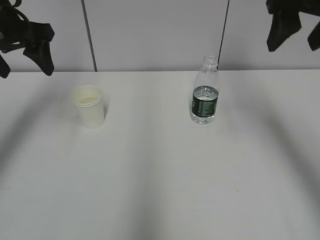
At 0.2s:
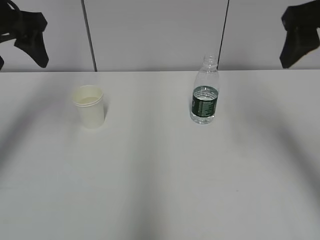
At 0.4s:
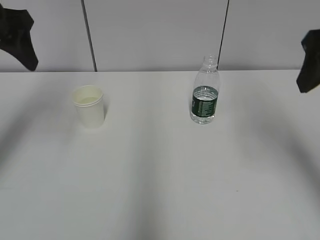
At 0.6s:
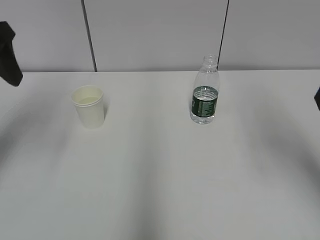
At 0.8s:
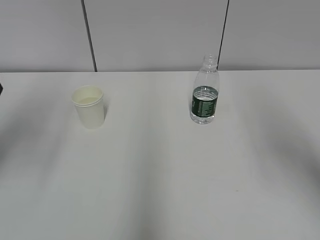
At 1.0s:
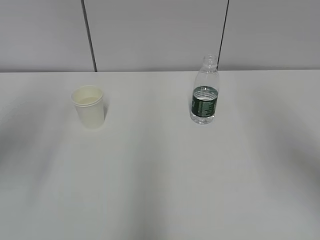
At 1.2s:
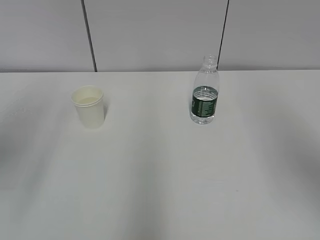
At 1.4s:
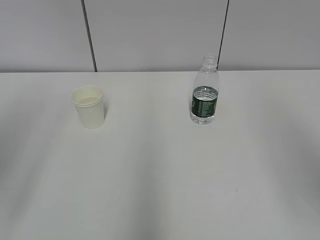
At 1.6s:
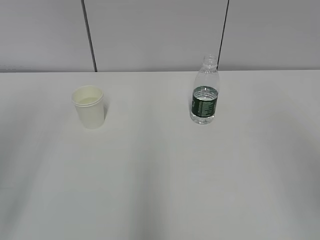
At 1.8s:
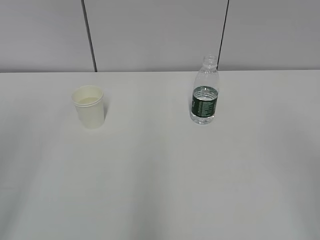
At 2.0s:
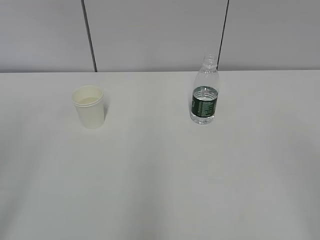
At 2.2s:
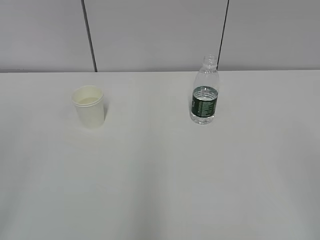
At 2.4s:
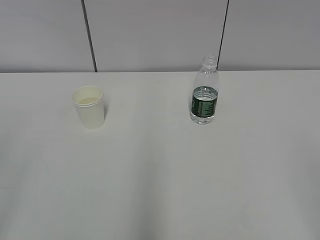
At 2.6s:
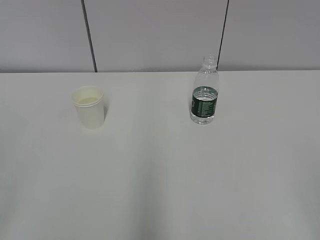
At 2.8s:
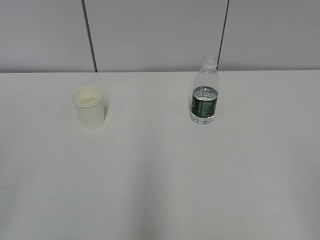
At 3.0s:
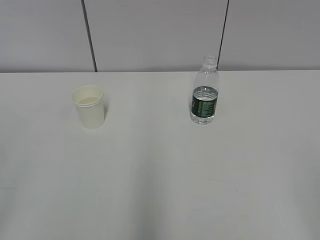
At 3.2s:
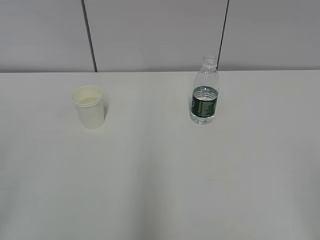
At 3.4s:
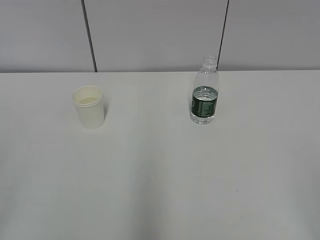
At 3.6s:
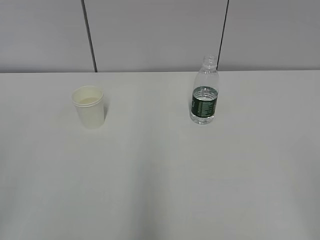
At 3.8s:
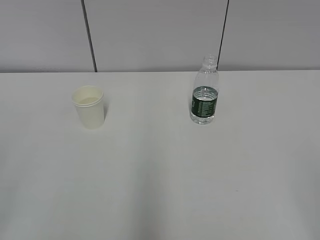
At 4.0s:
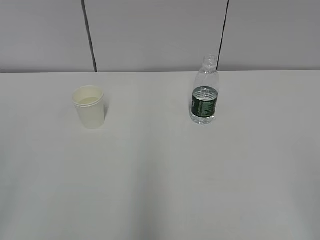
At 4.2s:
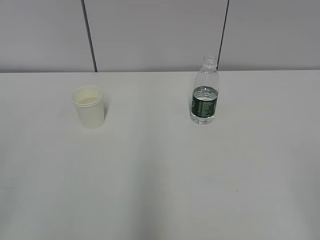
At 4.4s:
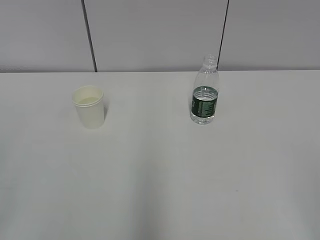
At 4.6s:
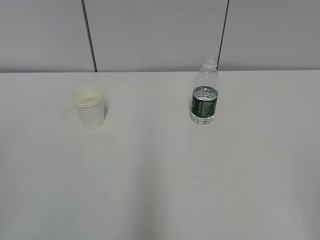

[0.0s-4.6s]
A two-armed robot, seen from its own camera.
0.0s to 1.6s: Both grippers travel together backward, about 25 cm.
3.0s to 4.6s: Both grippers stay put.

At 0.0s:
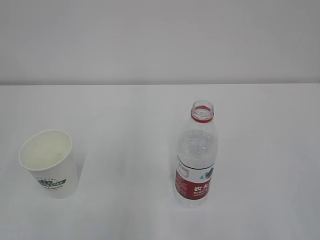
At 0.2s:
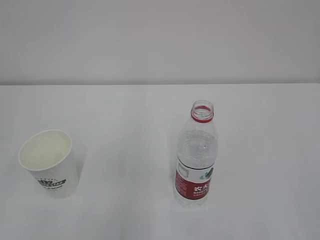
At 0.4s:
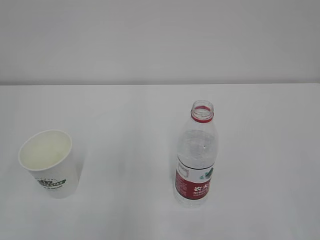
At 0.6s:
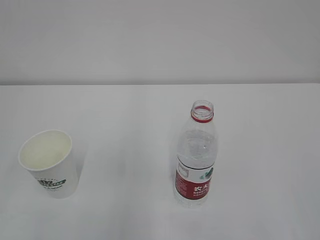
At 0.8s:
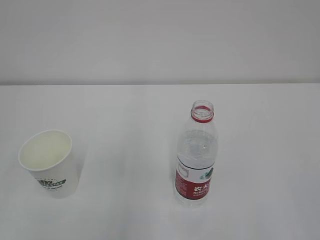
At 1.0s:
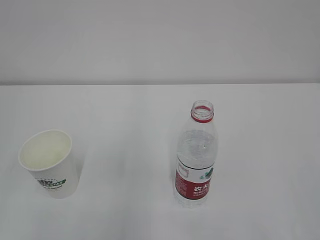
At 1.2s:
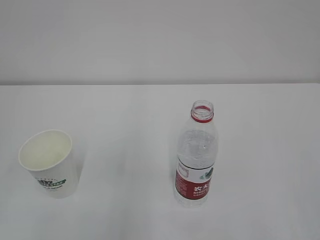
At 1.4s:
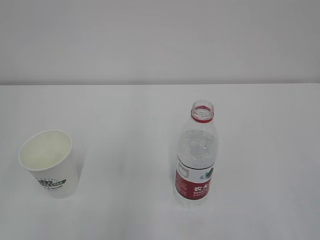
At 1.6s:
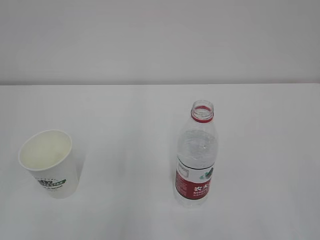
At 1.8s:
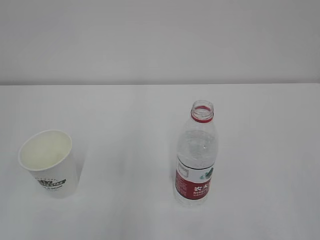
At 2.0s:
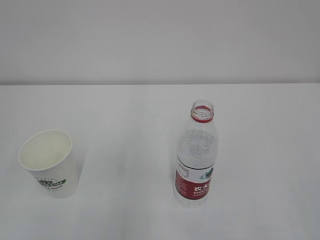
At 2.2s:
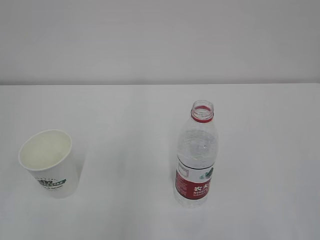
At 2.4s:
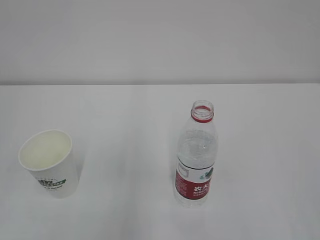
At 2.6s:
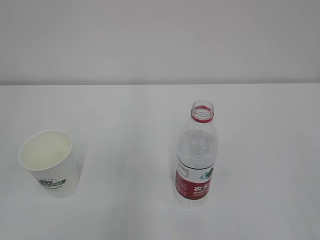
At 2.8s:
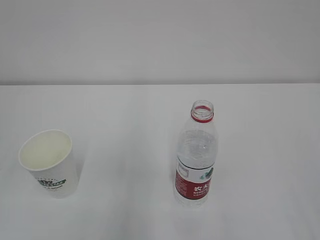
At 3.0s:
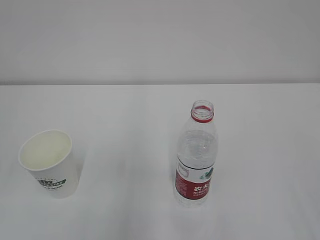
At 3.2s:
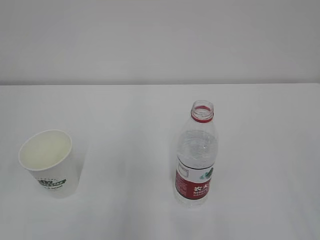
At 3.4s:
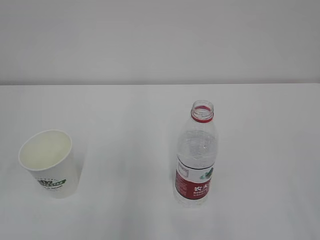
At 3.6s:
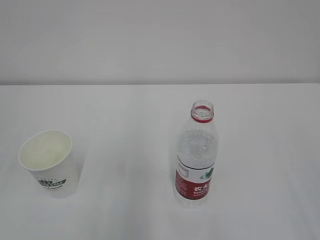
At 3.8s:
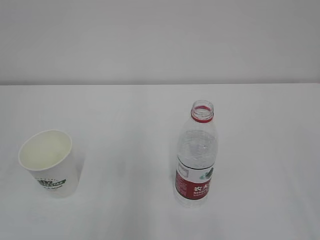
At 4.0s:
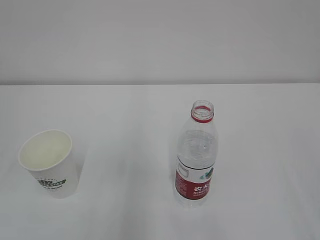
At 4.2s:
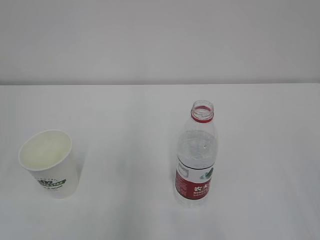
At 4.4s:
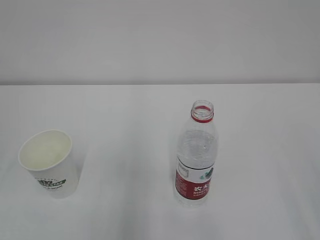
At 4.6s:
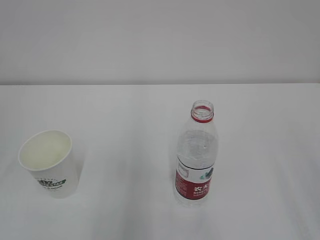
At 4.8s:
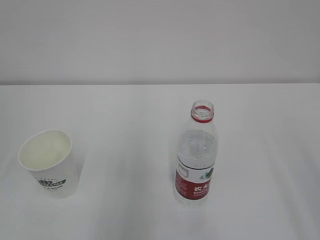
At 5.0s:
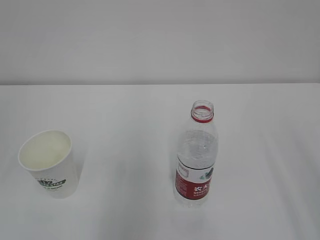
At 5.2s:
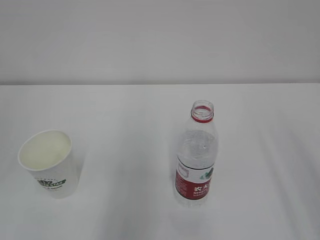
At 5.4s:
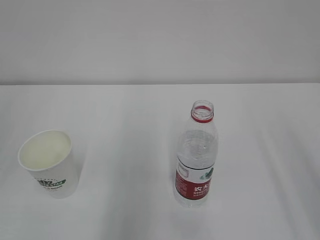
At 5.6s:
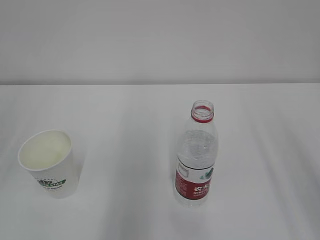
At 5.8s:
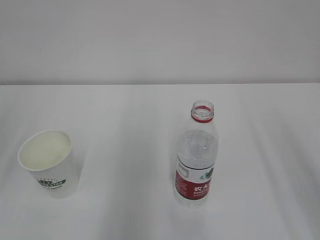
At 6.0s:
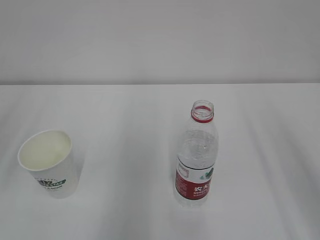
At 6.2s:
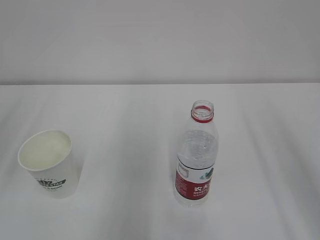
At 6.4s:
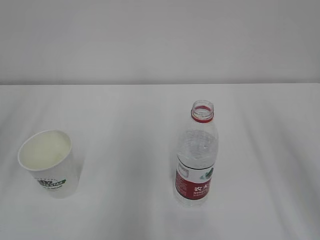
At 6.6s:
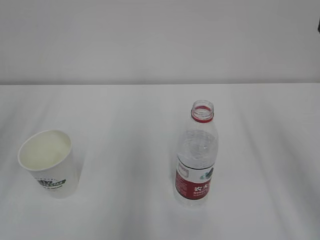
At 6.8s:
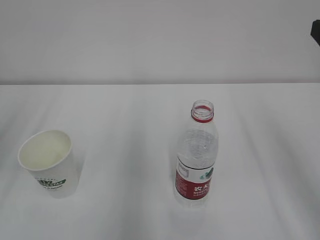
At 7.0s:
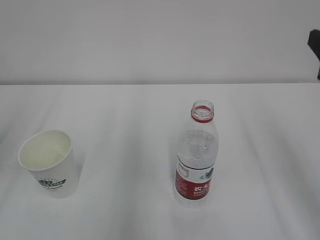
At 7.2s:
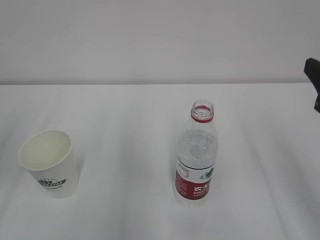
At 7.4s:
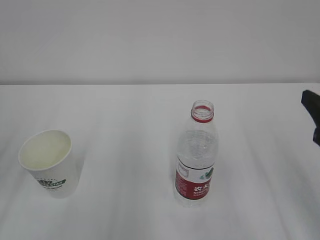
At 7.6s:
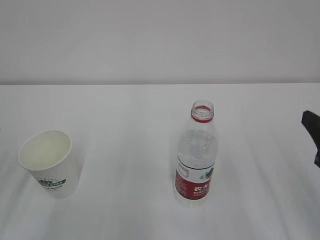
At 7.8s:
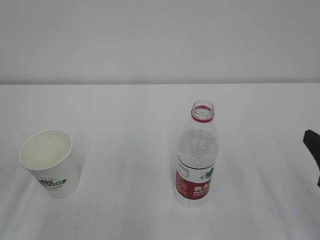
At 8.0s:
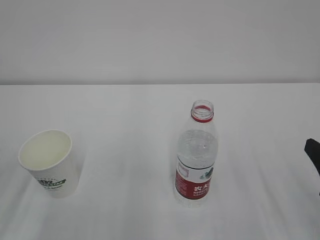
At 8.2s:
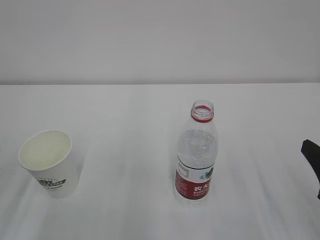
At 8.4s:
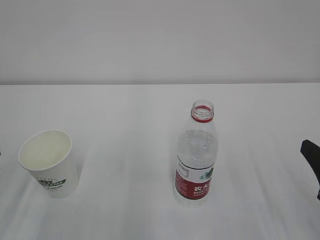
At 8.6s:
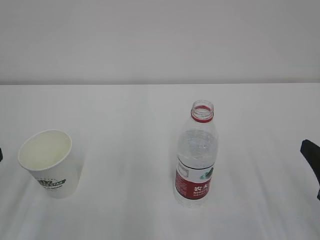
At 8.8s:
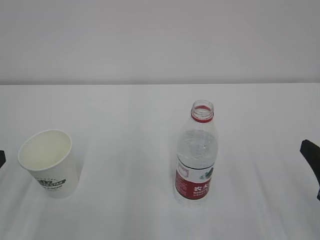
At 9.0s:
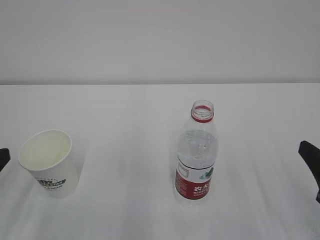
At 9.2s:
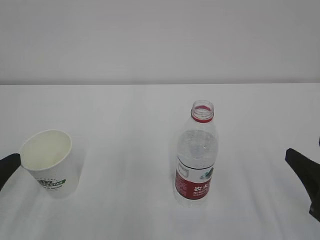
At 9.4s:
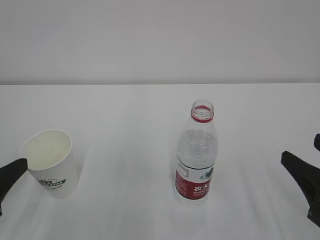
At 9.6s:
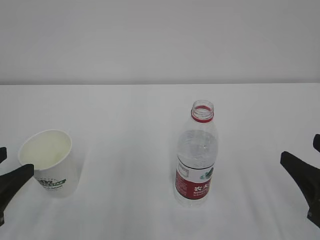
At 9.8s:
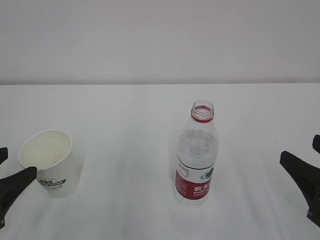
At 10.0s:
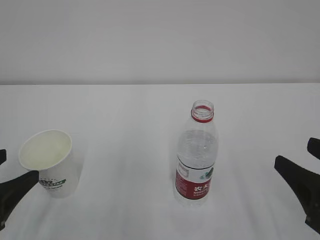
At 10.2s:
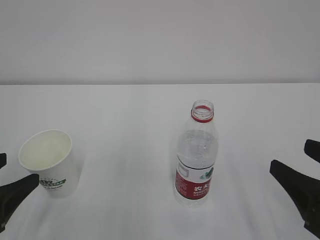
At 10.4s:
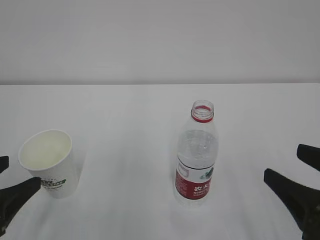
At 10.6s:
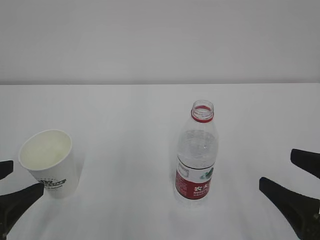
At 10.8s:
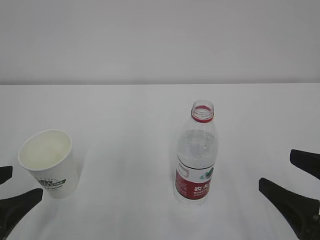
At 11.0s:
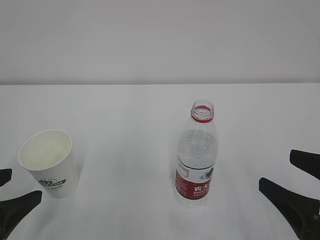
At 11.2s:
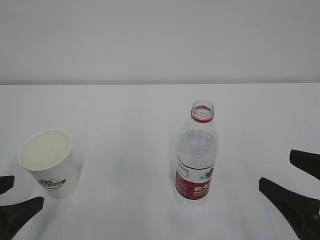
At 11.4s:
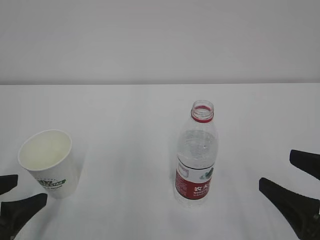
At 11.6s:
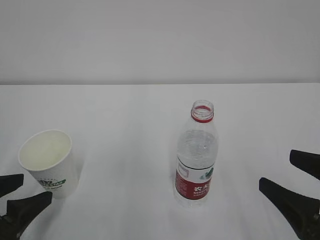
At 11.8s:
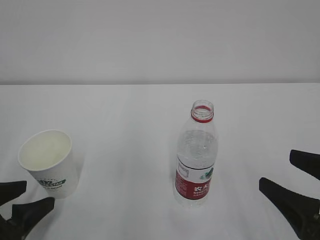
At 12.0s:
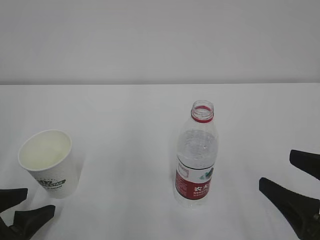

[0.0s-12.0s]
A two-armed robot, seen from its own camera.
6.0s to 7.6s: The right gripper goes approximately 15 cm downward.
7.6s to 9.0s: There are only small adjustments of the grippers.
9.0s to 10.4s: The right gripper opens; the left gripper opens its fingers.
10.4s to 12.0s: The left gripper is displaced downward by approximately 5 cm.

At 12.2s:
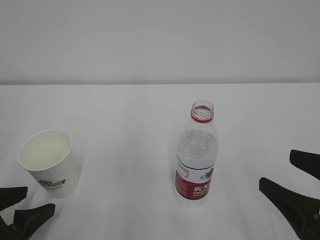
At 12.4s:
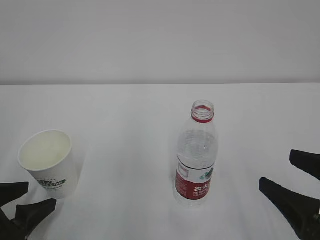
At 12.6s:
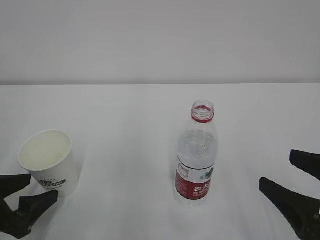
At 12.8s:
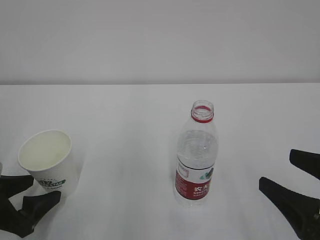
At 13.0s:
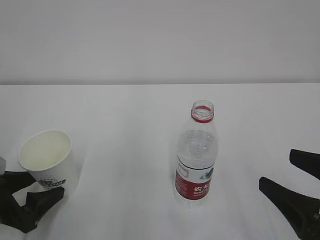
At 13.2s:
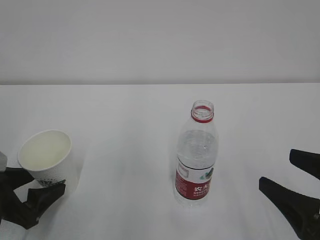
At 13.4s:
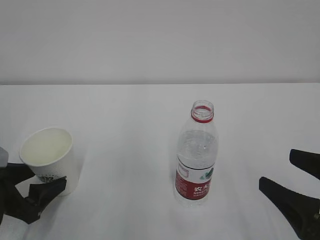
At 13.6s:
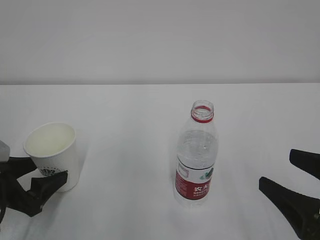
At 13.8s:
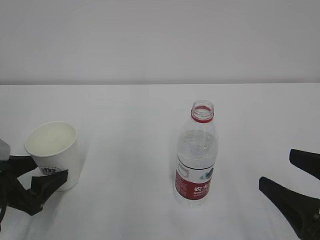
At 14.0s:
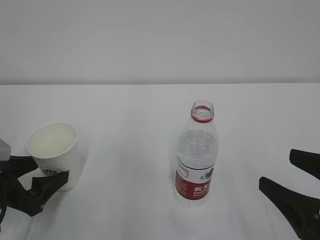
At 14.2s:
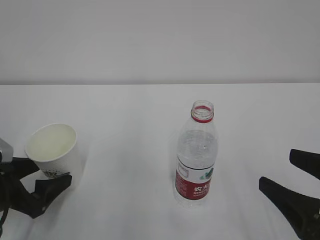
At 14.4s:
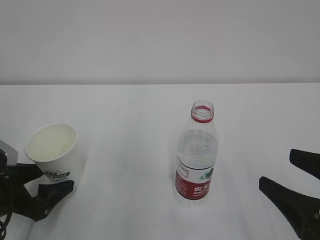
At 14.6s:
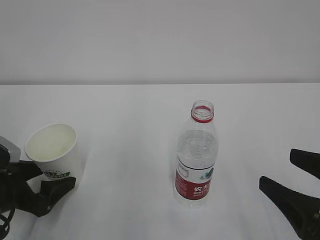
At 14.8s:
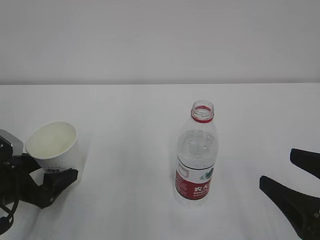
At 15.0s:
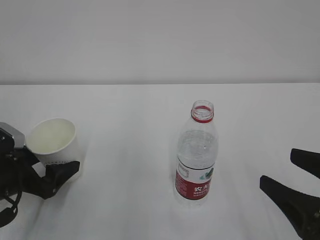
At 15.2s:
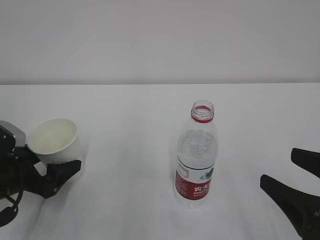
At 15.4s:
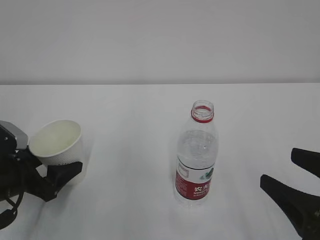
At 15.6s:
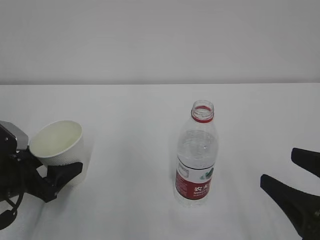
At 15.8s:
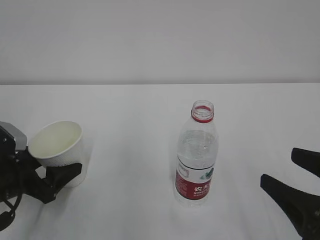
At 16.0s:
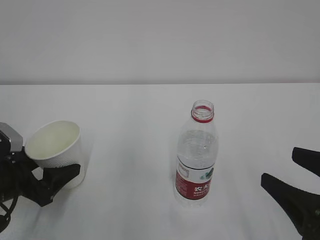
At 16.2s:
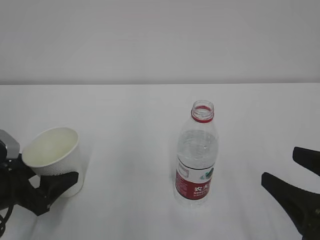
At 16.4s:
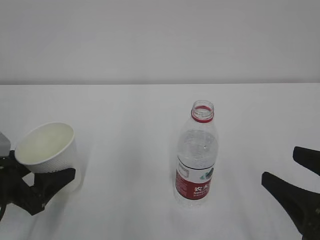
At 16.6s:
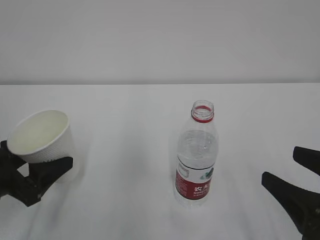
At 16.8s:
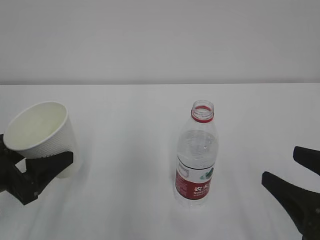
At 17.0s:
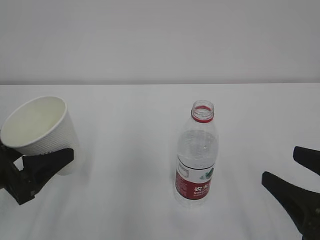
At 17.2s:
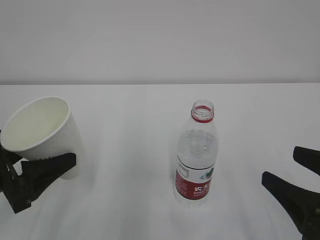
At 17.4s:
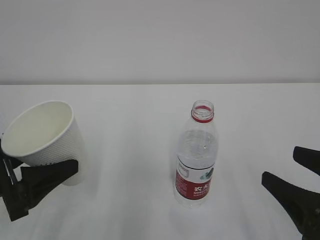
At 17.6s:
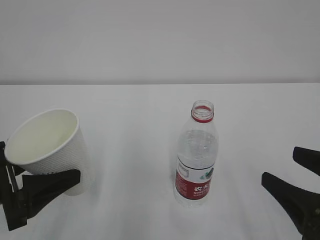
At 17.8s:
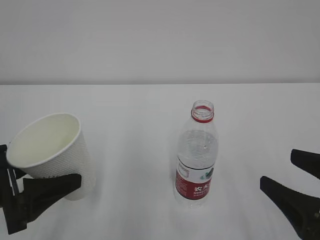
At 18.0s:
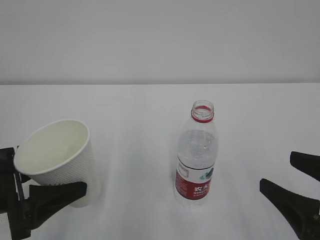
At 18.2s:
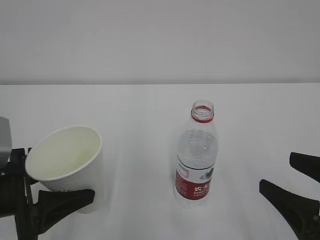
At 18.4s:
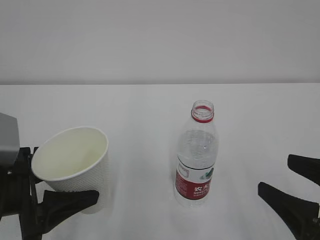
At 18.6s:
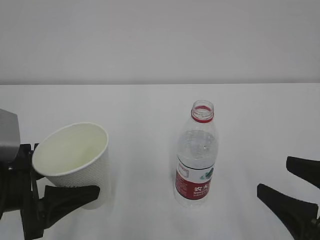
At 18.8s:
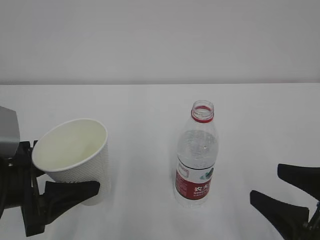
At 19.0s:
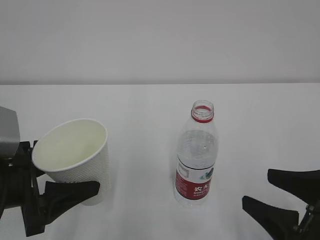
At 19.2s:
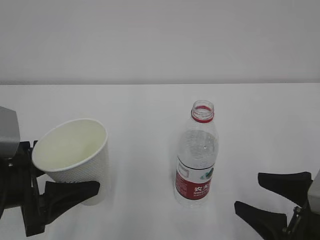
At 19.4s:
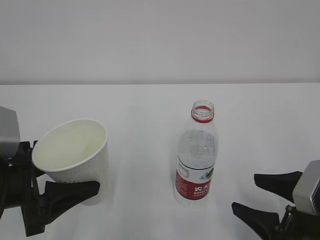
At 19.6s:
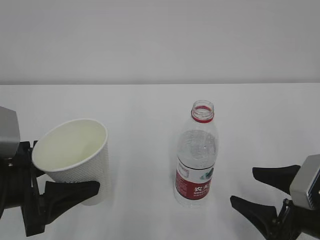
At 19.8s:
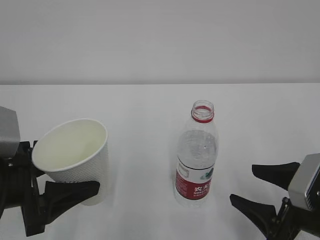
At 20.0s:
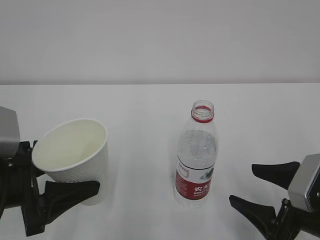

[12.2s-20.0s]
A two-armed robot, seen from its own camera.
12.2s to 13.8s: The left gripper shifts some 5 cm forward.
13.8s to 15.4s: The grippers stay close to where they were, moving slightly.
15.4s to 16.8s: The left gripper moves upward, roughly 5 cm.
18.4s to 20.0s: The right gripper goes approximately 5 cm downward.
